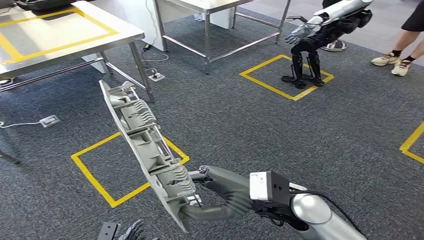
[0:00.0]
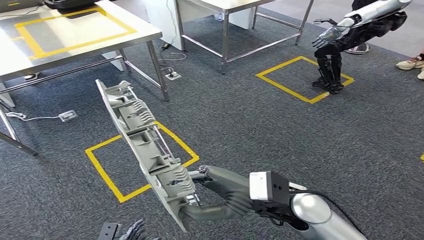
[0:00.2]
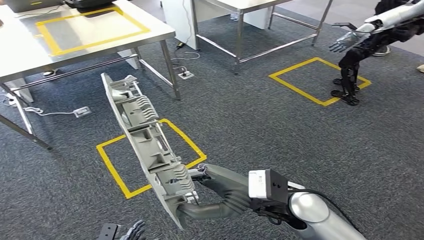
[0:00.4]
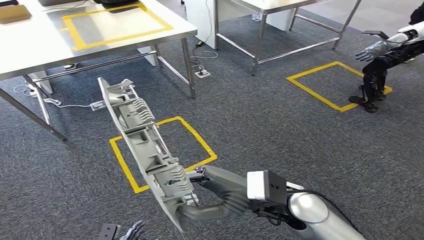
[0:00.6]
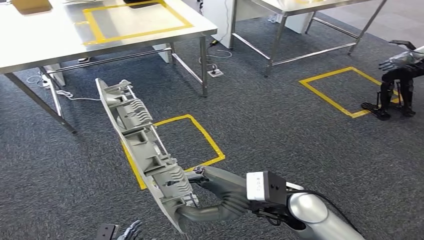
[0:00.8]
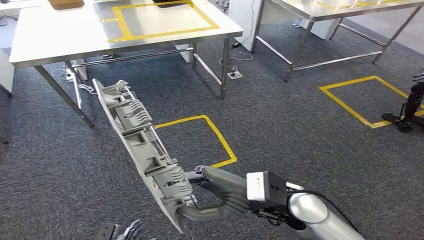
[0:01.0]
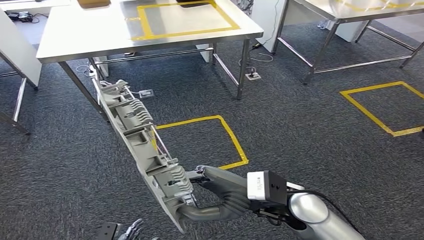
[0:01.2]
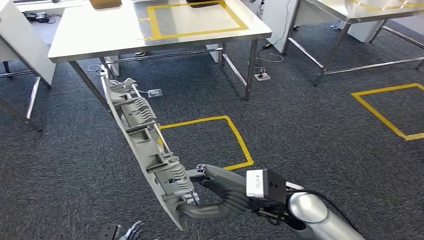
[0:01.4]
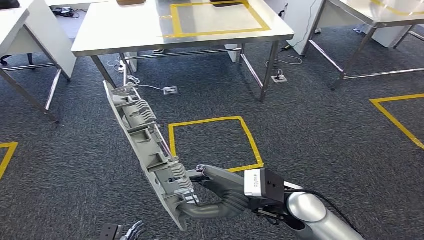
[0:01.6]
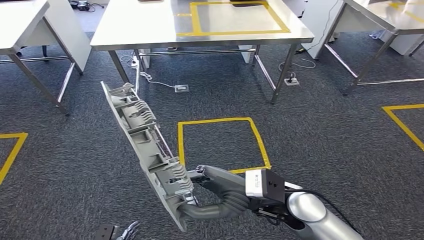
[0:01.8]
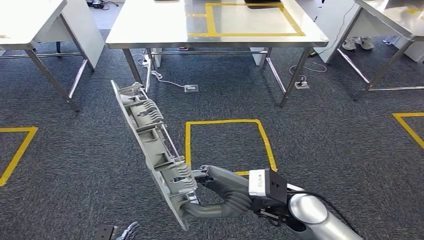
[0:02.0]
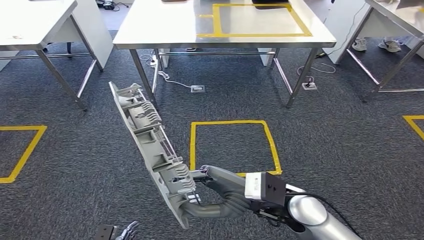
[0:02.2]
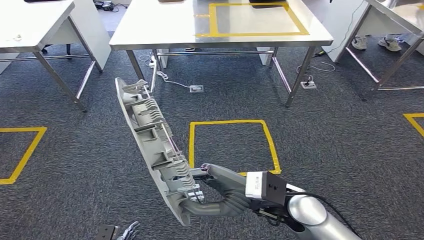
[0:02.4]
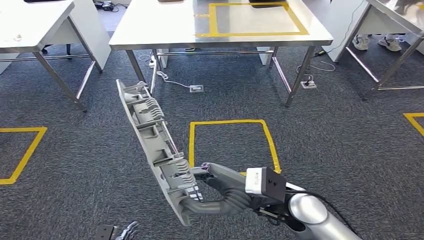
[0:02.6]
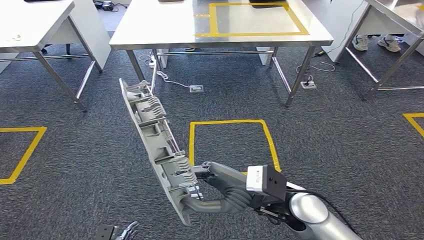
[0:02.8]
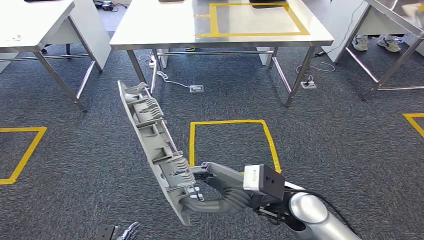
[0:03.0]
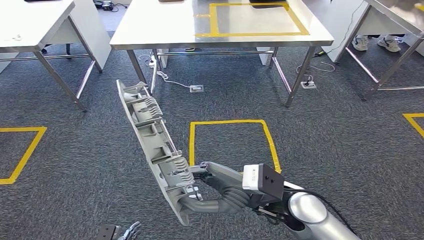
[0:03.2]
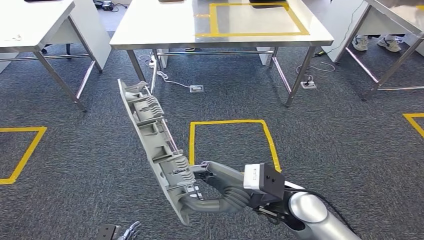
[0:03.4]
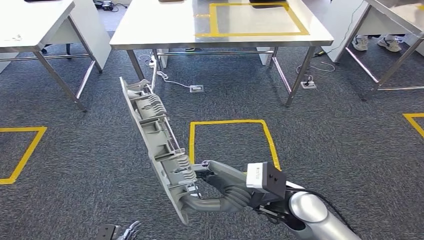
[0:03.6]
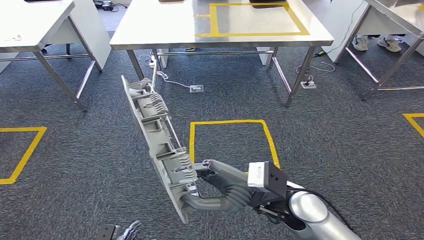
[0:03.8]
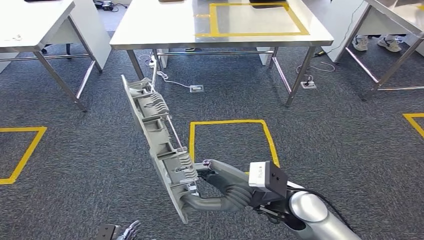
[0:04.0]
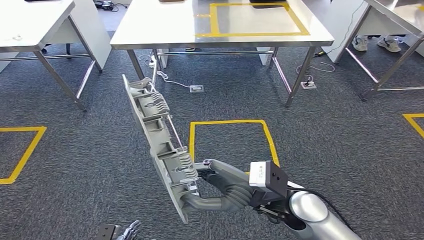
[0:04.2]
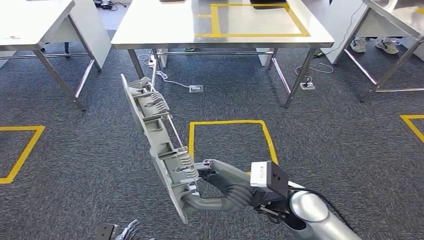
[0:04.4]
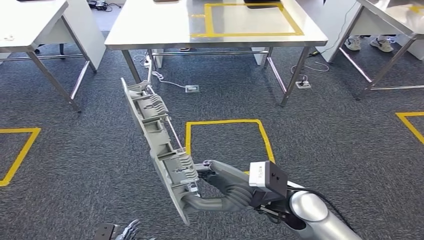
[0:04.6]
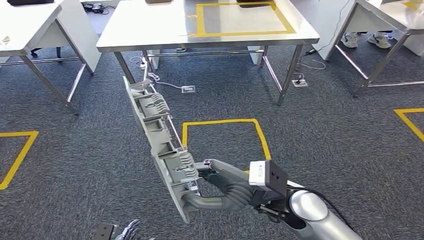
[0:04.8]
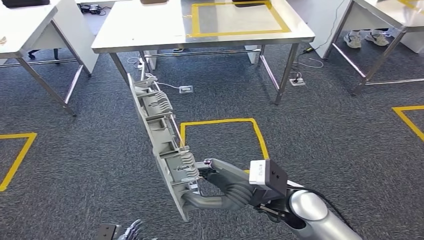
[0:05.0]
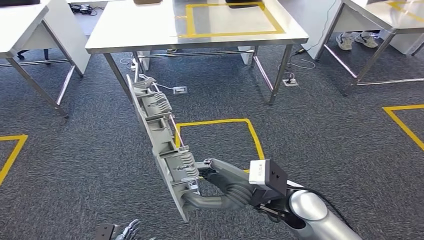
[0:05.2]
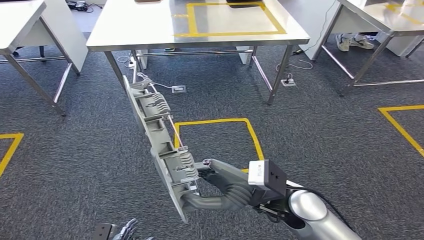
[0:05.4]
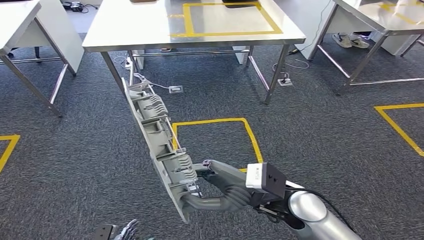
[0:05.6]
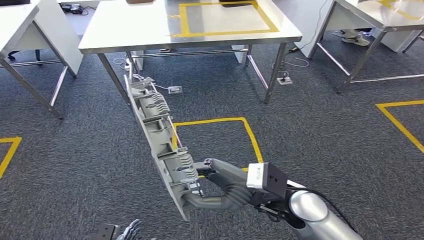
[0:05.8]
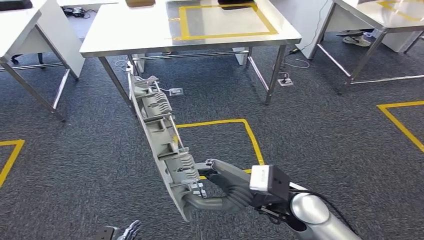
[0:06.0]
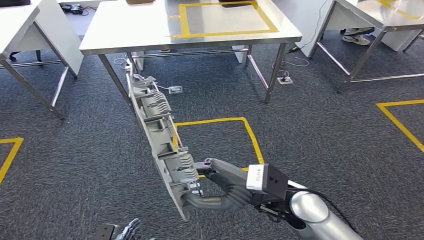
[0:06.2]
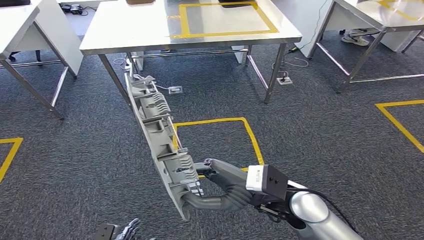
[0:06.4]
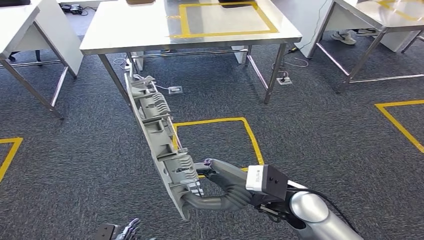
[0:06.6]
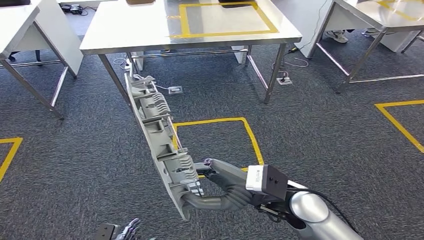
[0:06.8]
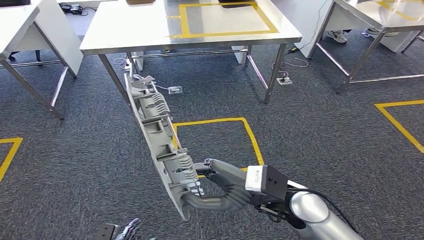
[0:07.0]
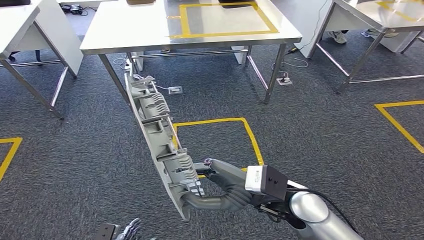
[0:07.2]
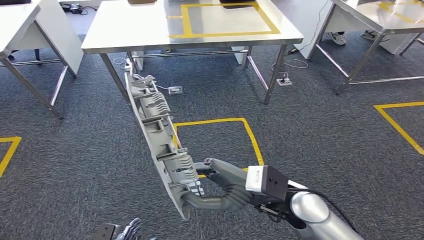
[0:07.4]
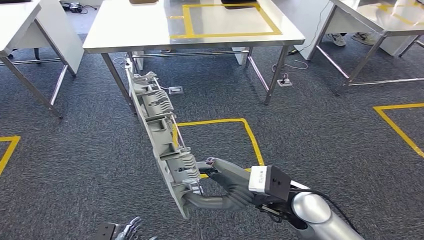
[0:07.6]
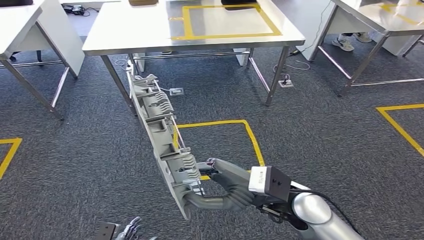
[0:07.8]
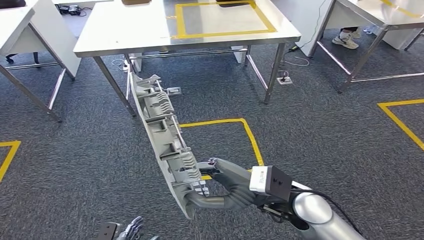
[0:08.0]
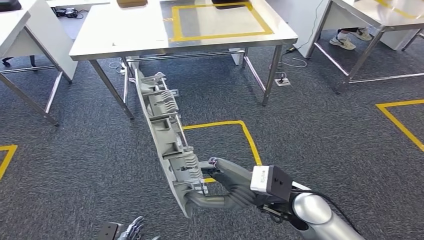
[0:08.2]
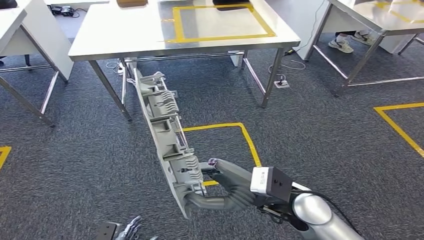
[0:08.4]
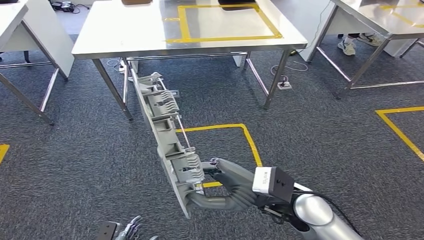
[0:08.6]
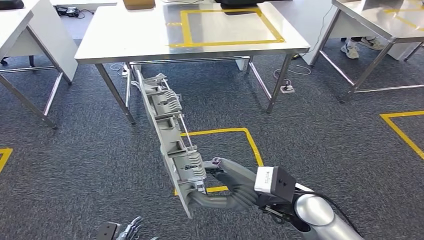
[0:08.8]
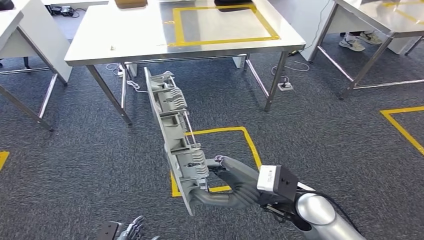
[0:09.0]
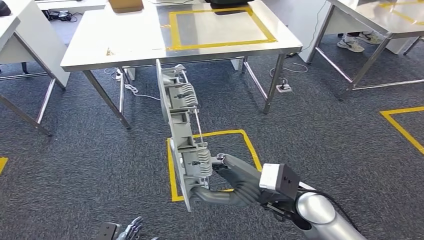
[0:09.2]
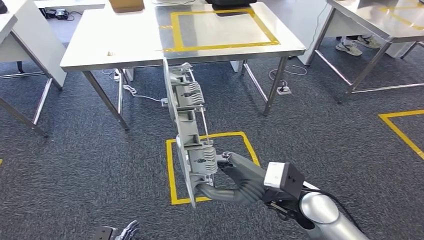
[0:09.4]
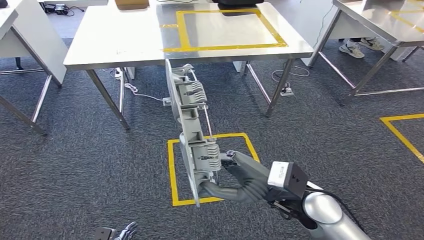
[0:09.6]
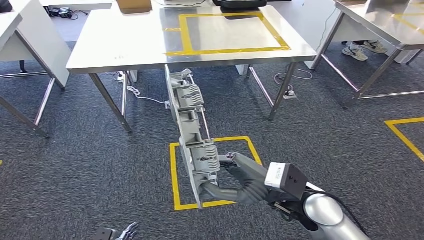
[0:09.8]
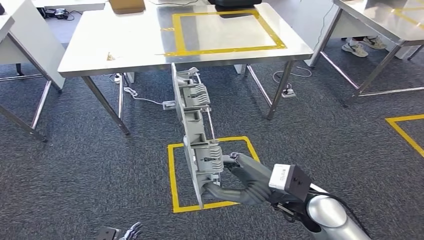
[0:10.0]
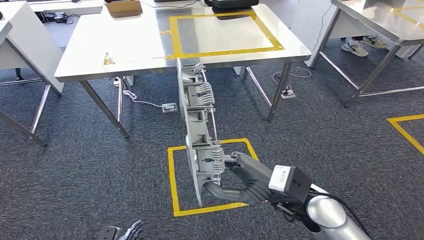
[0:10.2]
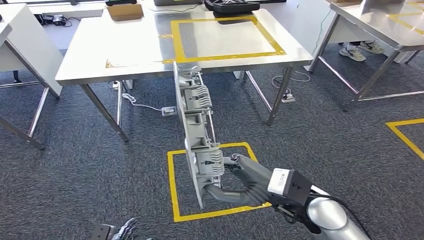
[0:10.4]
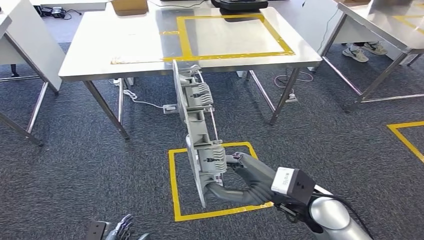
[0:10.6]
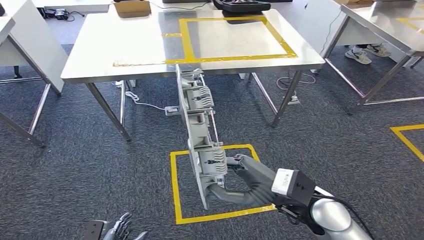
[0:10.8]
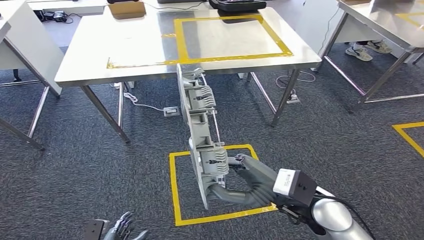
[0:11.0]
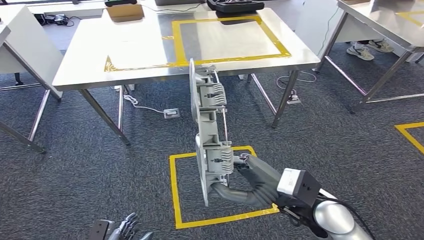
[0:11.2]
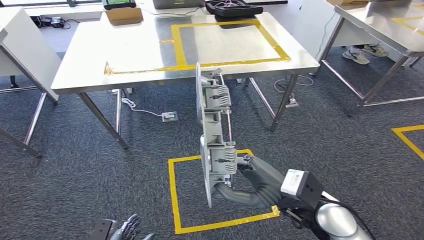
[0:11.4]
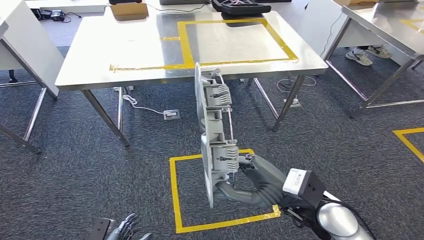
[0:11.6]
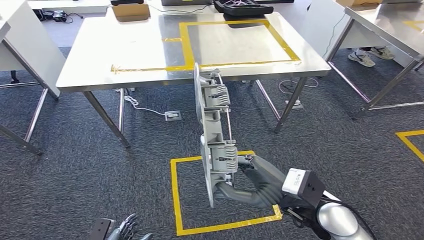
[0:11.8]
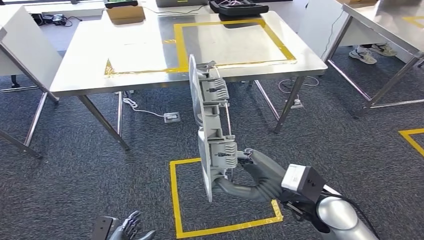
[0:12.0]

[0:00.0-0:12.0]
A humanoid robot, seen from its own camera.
0:03.0 to 0:04.4: Neither hand changes place.
0:06.0 to 0:07.6: Both hands stay about where they are.

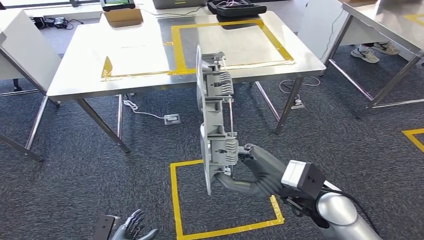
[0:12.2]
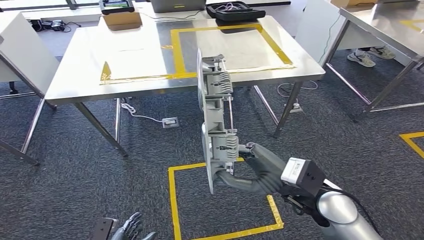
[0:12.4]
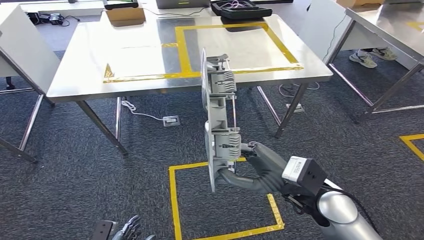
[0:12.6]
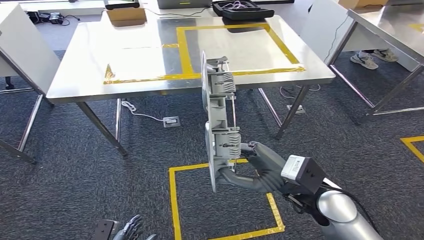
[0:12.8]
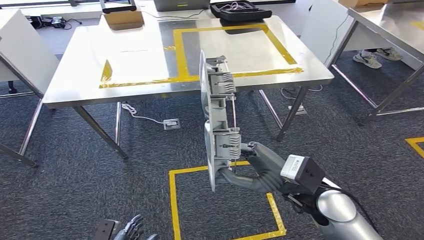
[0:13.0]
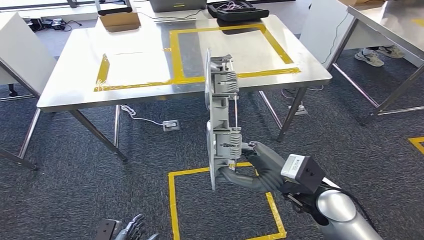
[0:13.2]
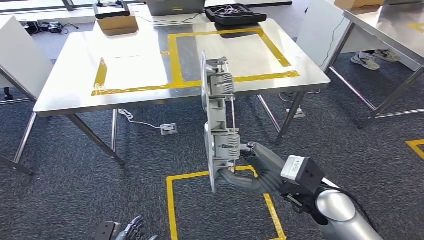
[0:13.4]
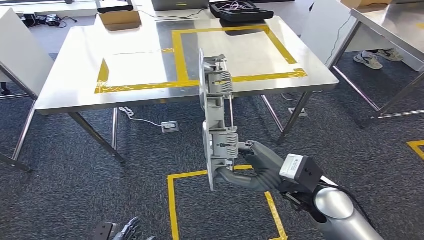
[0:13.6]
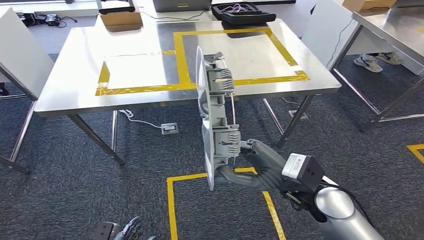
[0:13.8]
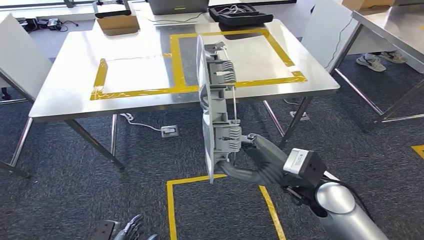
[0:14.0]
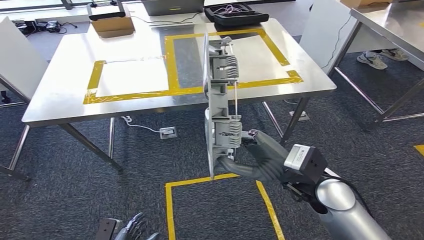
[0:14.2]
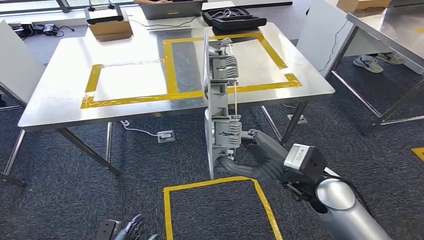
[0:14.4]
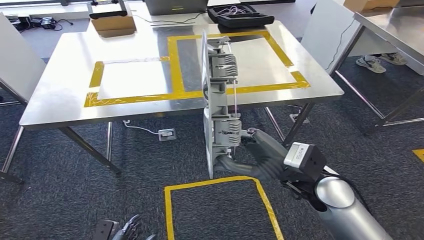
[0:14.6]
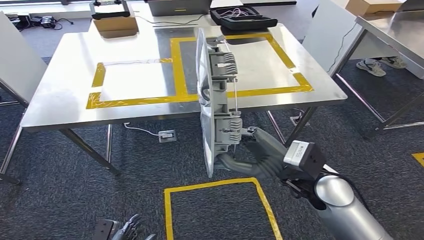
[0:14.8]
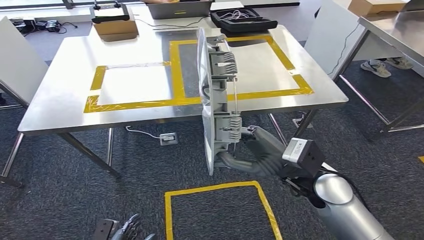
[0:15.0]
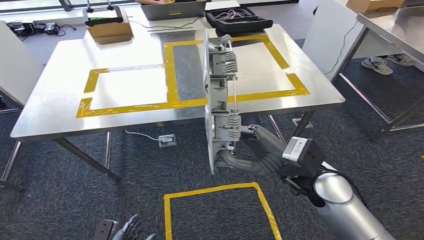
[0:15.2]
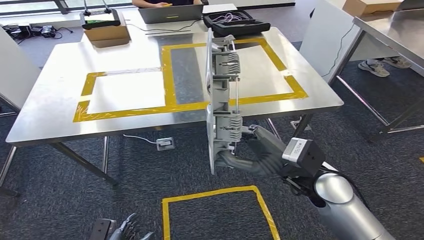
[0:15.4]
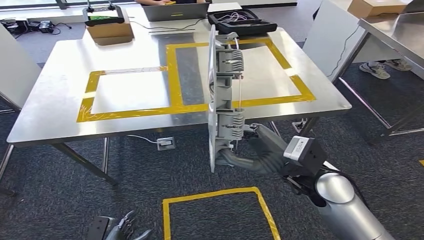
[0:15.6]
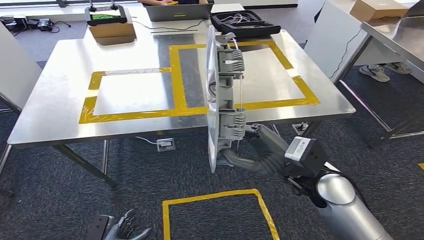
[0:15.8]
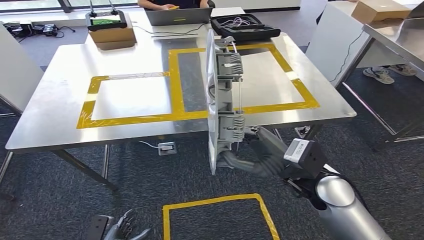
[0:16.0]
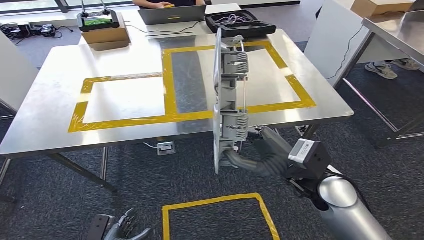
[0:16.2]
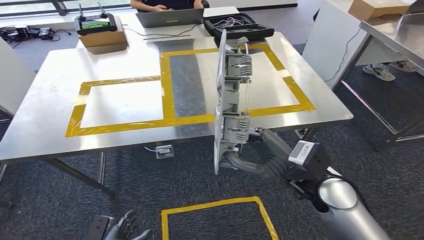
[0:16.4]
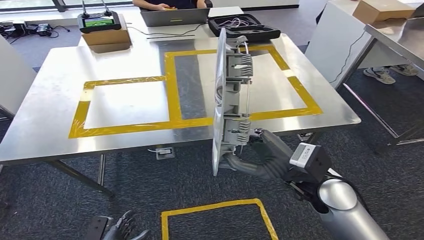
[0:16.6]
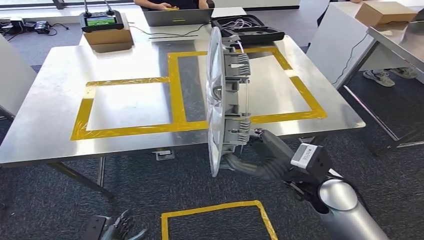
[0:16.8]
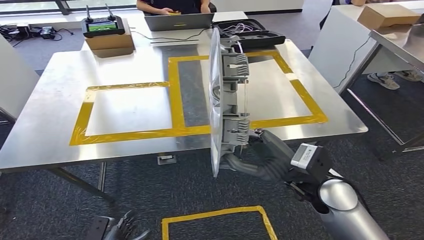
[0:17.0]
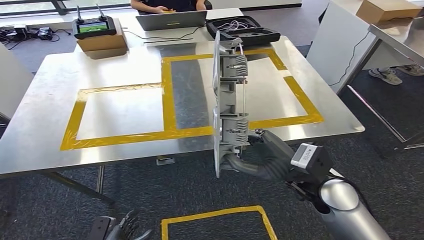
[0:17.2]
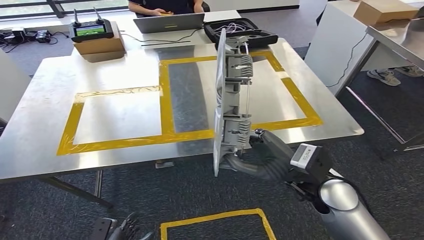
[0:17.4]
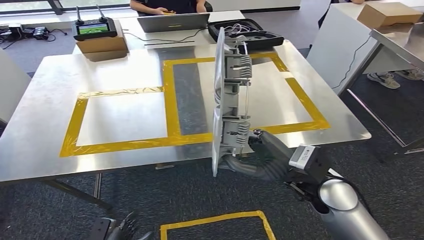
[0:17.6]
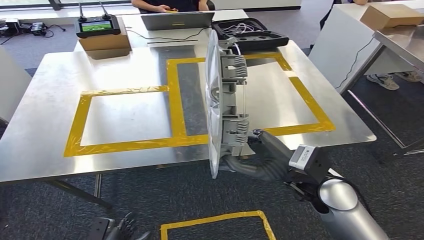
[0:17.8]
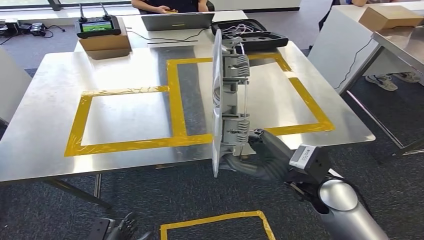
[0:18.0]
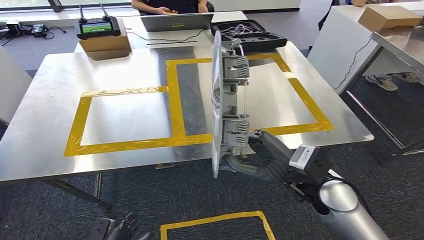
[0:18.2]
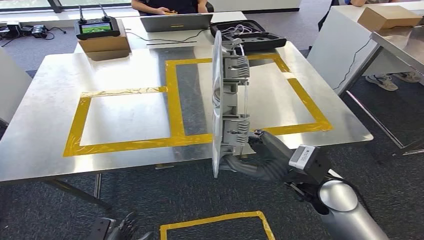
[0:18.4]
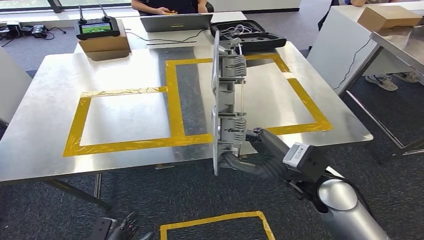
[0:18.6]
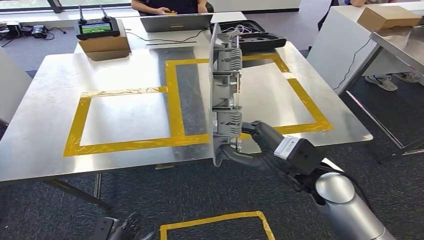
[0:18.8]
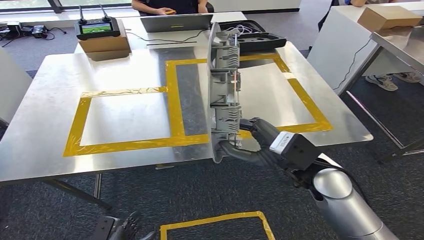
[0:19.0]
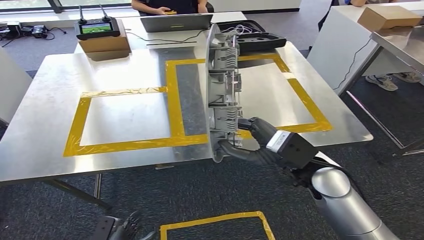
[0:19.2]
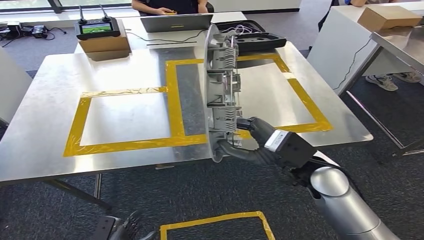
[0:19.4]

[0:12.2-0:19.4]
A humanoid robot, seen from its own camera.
Step, 0:12.2 to 0:18.4: Move the small component to the workbench.
0:18.0 to 0:19.4: The hands move only a little.
